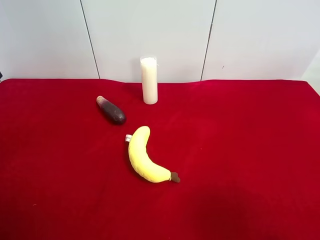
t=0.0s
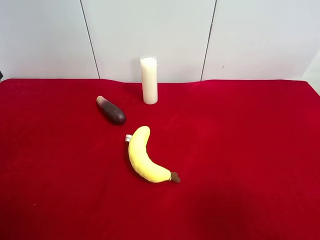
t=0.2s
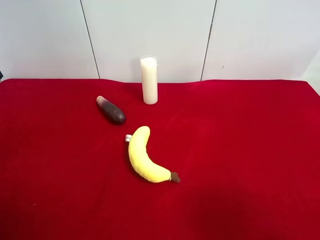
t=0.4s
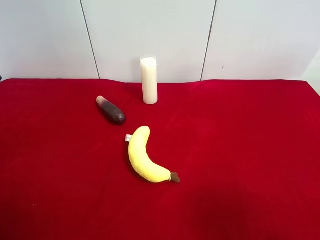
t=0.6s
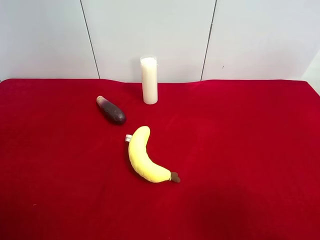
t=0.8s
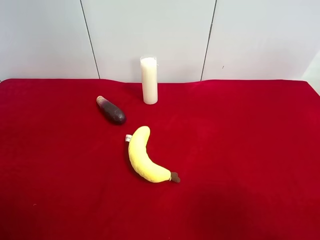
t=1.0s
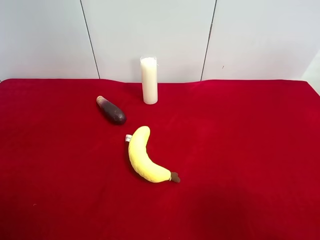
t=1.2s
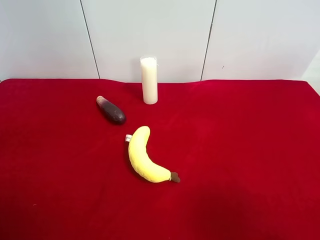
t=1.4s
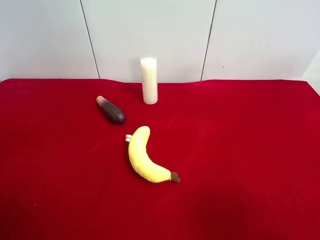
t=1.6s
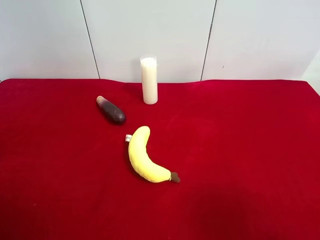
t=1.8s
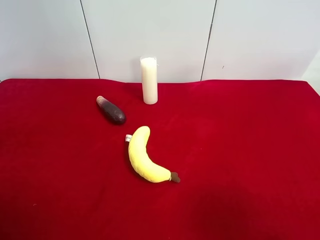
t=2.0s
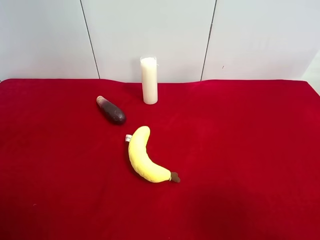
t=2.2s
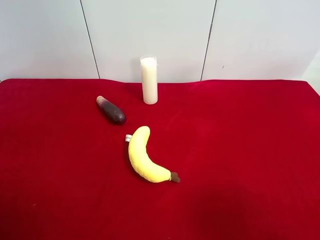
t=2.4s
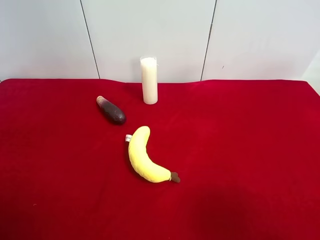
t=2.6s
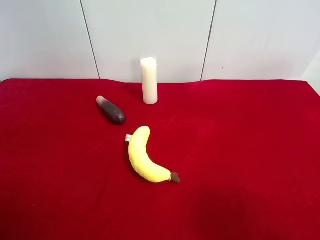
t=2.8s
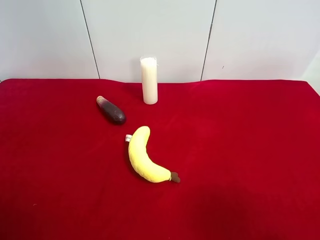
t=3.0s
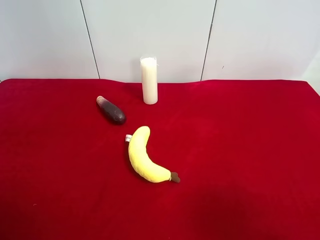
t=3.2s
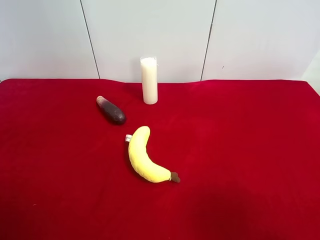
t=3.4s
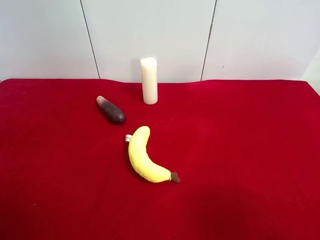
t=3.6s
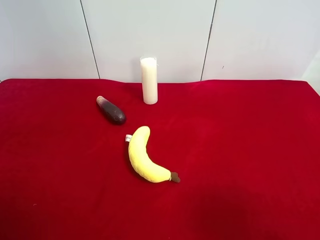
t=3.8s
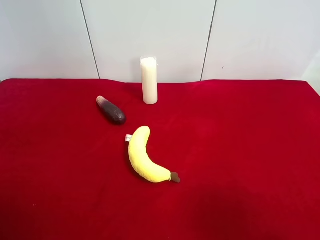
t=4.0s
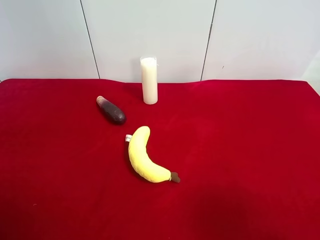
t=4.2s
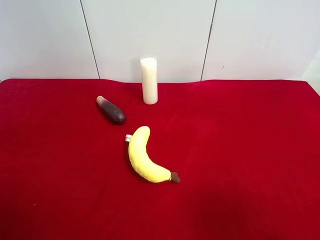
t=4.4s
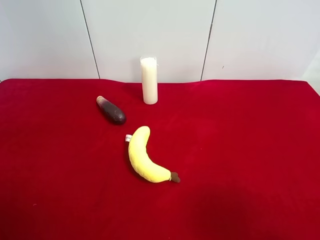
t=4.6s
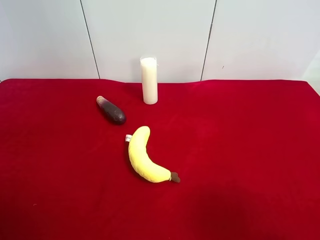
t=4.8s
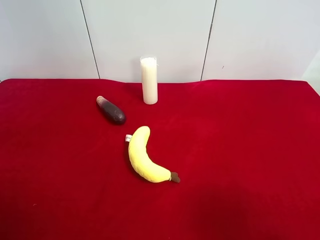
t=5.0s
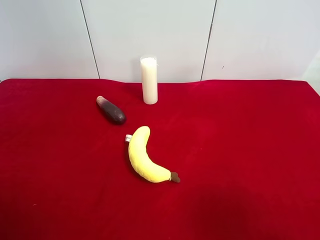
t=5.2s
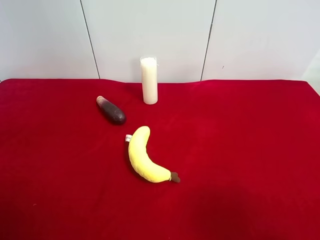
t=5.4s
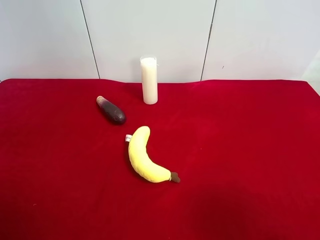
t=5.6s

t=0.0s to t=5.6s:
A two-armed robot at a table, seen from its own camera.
Task of the whole recording: use the right gripper to pick up the item and transfer it from the right gripper to the left gripper.
t=4.2s to t=5.6s: Neither gripper changes place.
